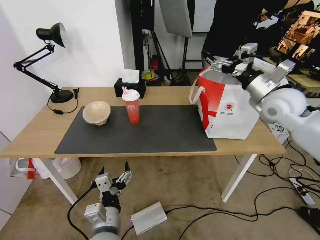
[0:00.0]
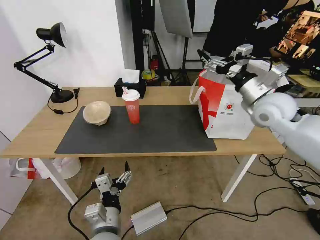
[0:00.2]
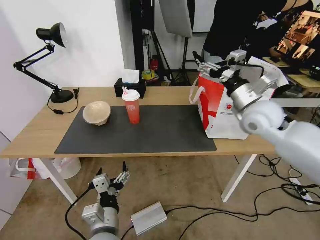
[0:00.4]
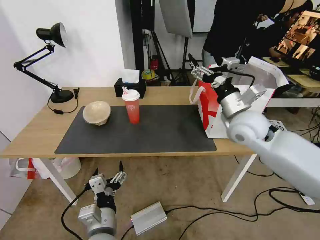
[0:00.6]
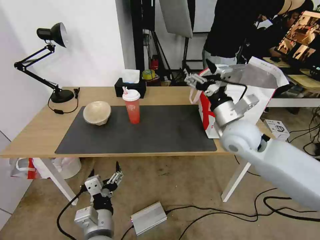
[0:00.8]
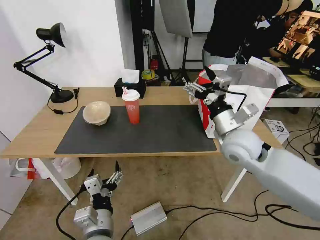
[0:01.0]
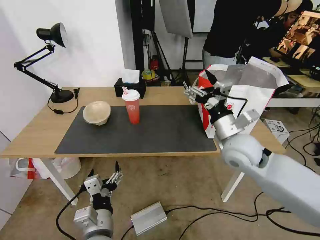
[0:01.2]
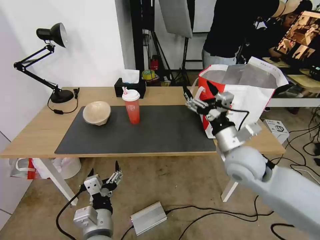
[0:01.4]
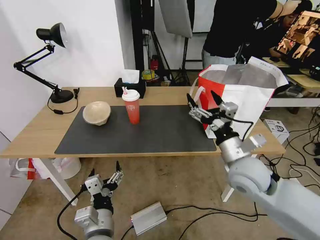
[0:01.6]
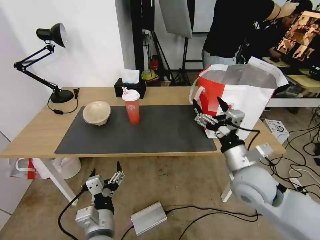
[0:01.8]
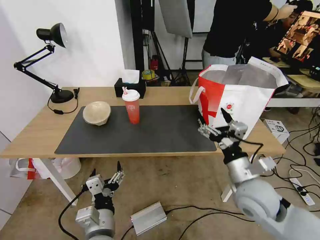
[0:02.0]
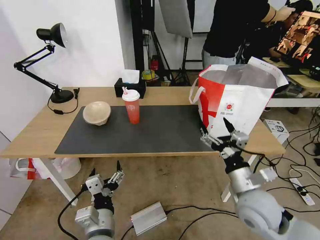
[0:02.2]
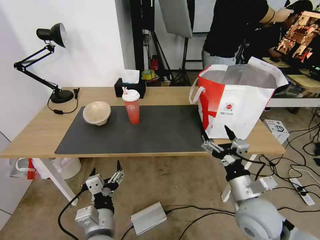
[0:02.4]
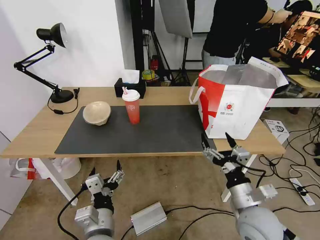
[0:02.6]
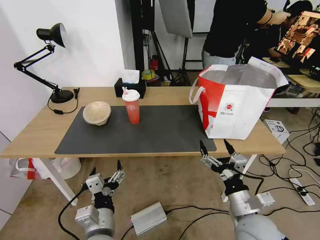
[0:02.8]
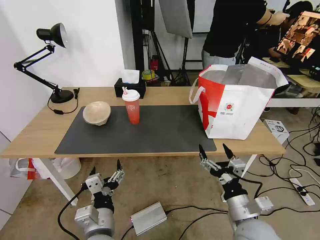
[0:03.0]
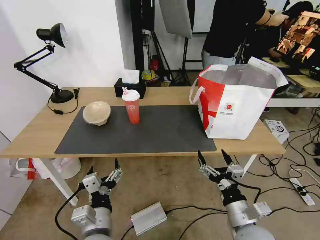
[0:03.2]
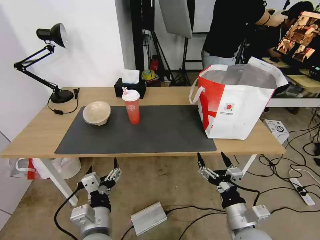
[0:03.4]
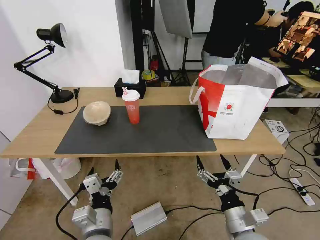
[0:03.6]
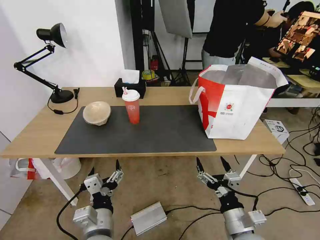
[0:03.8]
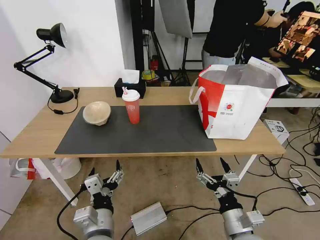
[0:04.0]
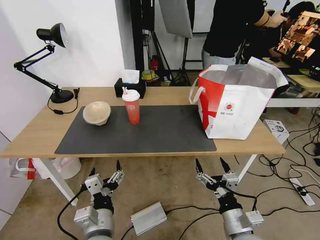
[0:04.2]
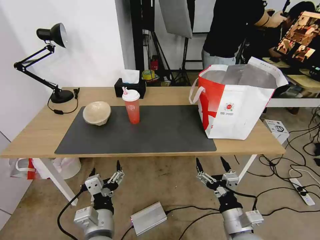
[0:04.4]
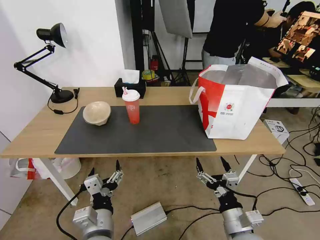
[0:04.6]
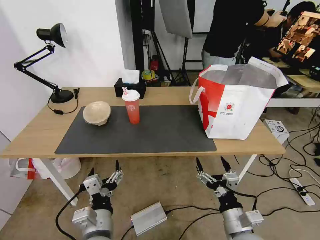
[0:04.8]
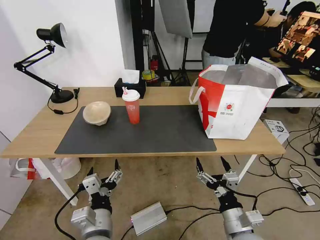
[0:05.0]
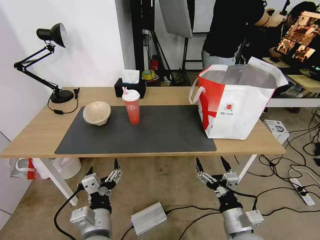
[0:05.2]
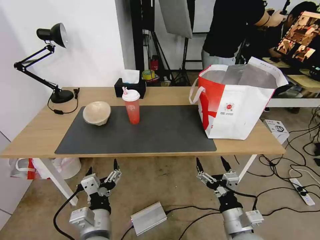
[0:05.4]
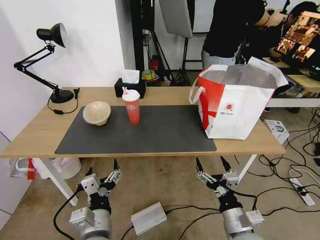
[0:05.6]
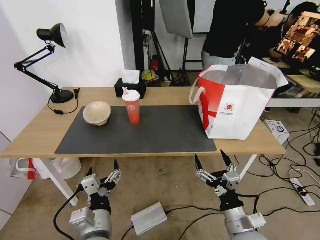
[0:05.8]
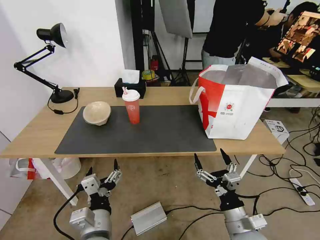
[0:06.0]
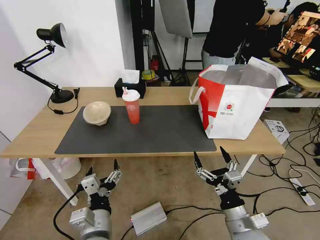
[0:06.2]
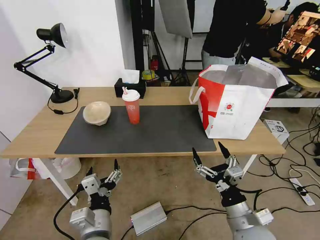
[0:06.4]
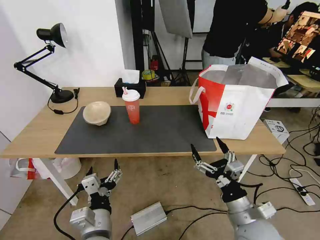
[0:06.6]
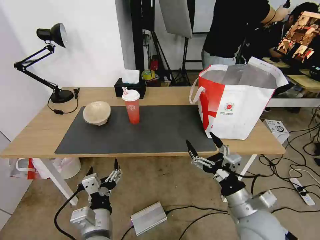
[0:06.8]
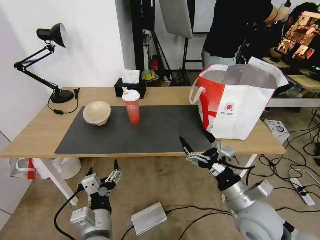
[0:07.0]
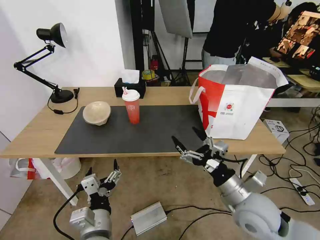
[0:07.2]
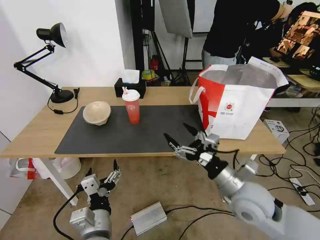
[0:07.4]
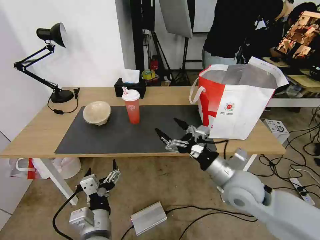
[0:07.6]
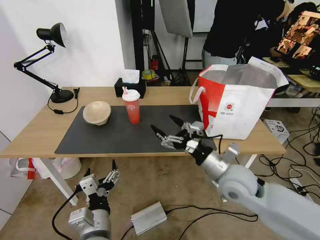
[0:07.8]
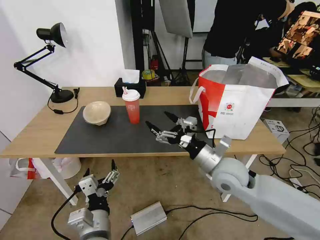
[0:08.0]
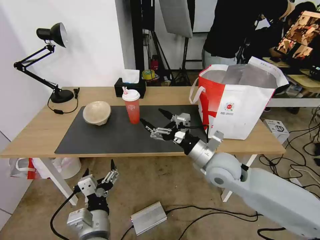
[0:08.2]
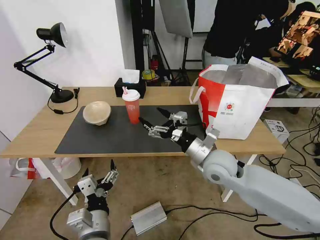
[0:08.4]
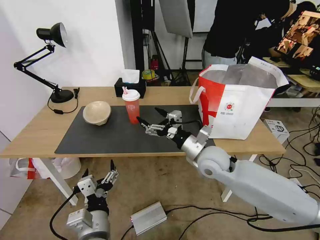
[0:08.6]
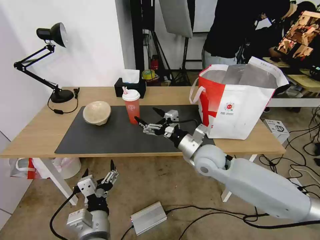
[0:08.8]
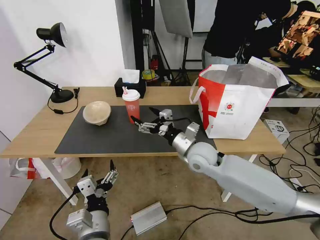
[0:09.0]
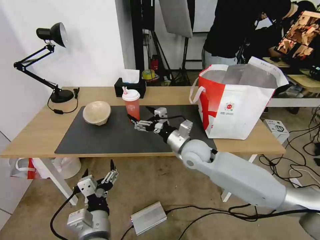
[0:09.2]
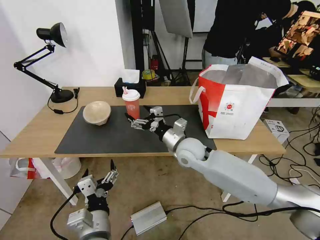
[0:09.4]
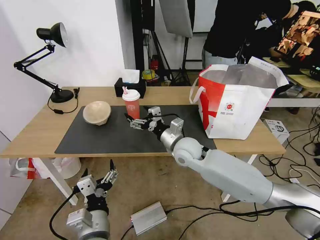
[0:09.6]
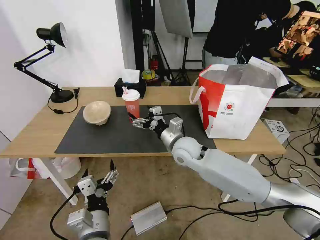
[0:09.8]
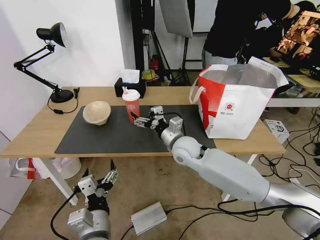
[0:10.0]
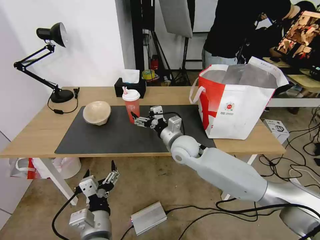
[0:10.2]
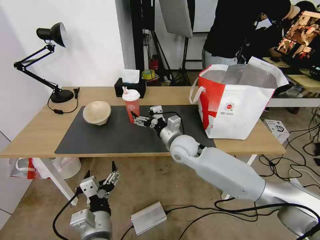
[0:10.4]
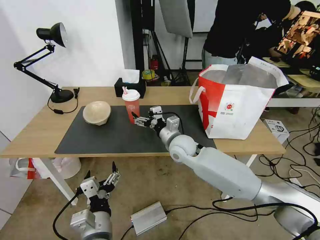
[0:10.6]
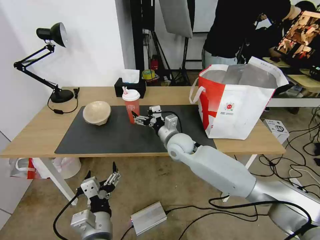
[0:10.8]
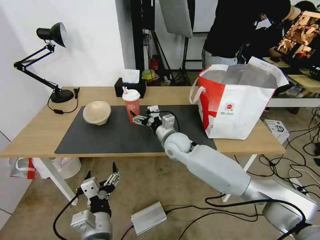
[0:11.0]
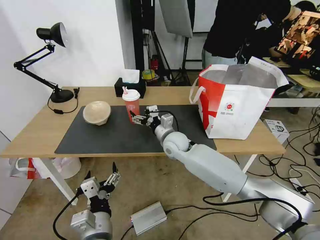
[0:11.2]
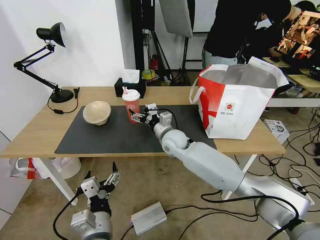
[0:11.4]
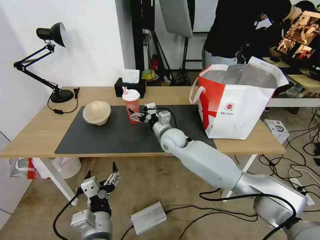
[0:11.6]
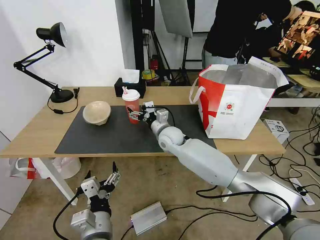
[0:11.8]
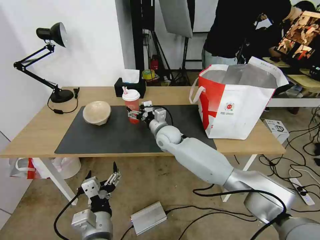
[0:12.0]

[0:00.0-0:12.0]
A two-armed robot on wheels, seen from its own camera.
Task of the whole recording: Pick up the trash from the table and place it into the takeout bag.
0:00.0 to 0:01.6: The right gripper heads backward, downward and to the left, covering roughly 20 cm.
0:01.6 to 0:03.0: The right gripper is displaced backward and downward by about 15 cm.
0:03.0 to 0:06.0: There are only small adjustments of the grippers.
0:06.0 to 0:07.6: The right gripper shifts roughly 15 cm forward and upward.
0:07.6 to 0:09.0: The right gripper is displaced forward and to the left by approximately 15 cm.
0:09.0 to 0:10.4: The right gripper moves to the left, approximately 5 cm.
0:10.4 to 0:12.0: The right gripper is displaced forward and to the left by roughly 10 cm.

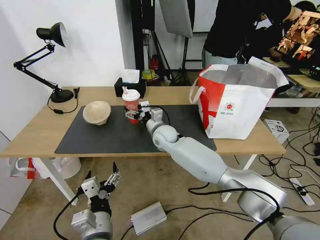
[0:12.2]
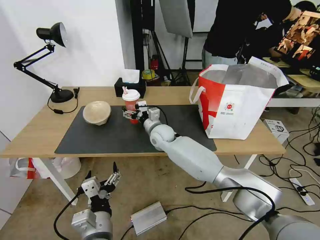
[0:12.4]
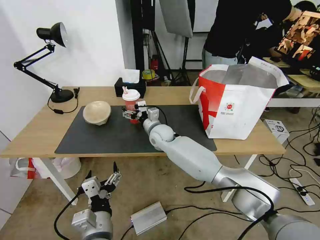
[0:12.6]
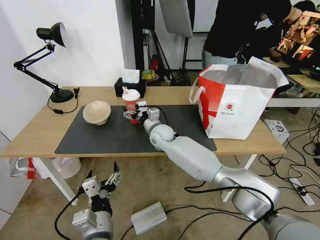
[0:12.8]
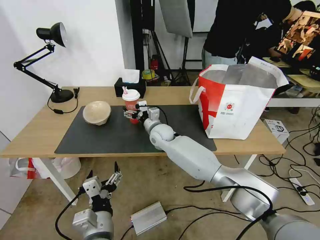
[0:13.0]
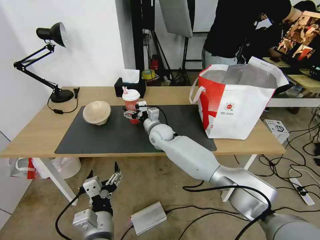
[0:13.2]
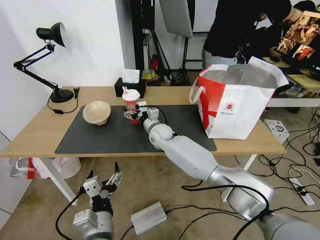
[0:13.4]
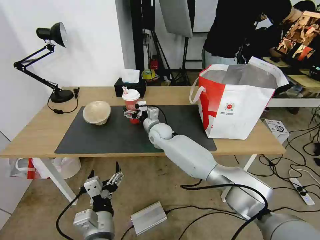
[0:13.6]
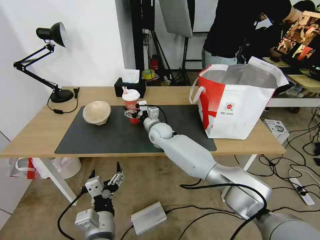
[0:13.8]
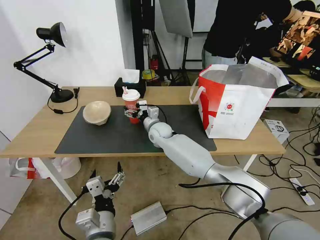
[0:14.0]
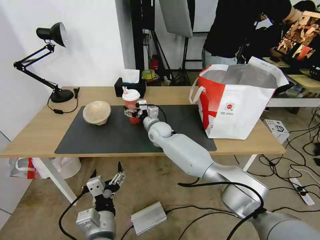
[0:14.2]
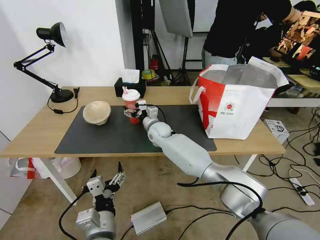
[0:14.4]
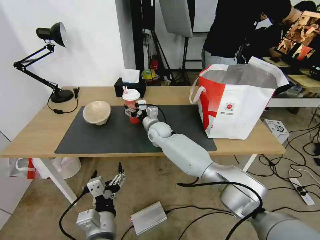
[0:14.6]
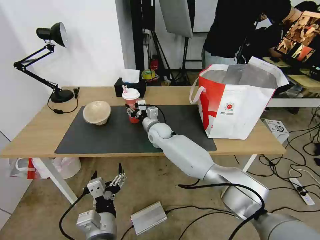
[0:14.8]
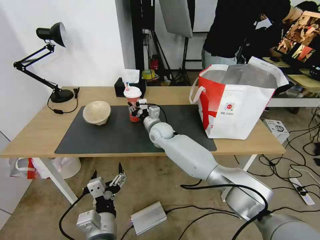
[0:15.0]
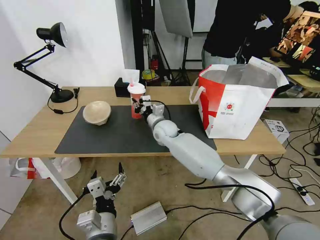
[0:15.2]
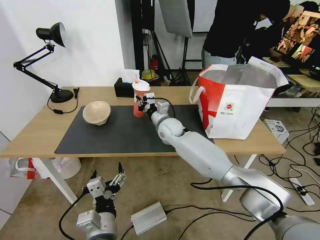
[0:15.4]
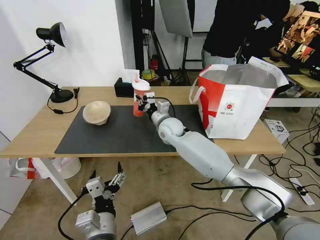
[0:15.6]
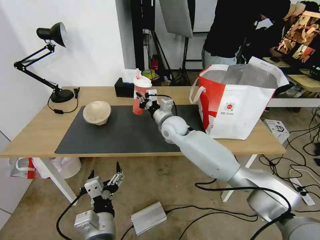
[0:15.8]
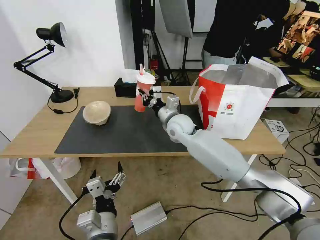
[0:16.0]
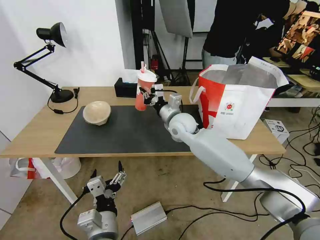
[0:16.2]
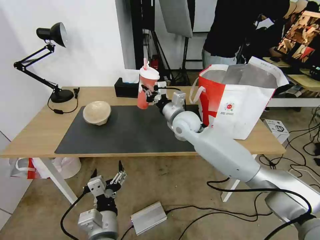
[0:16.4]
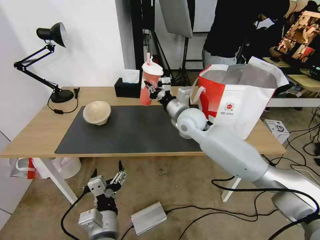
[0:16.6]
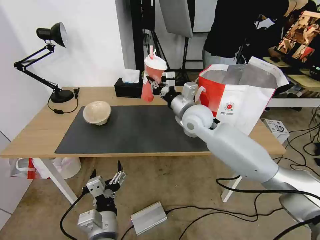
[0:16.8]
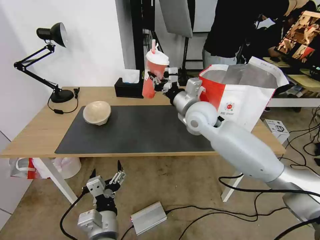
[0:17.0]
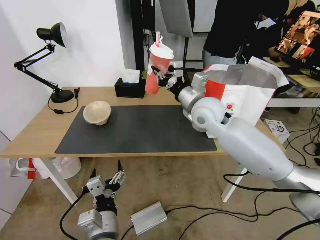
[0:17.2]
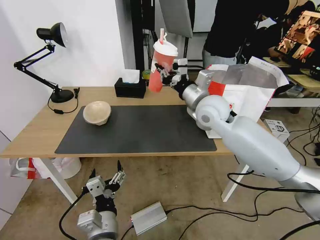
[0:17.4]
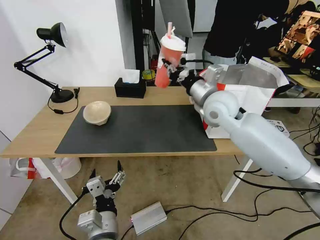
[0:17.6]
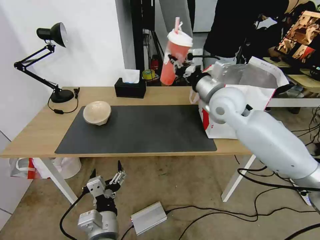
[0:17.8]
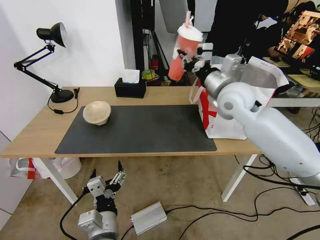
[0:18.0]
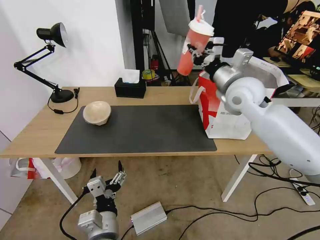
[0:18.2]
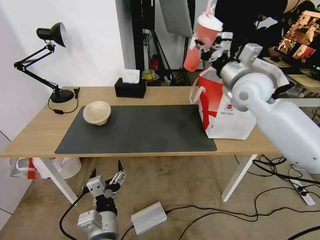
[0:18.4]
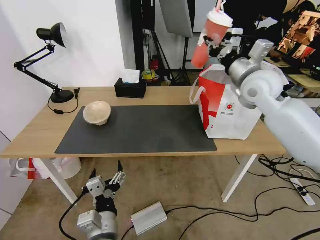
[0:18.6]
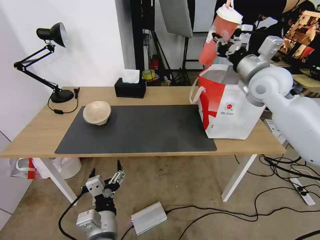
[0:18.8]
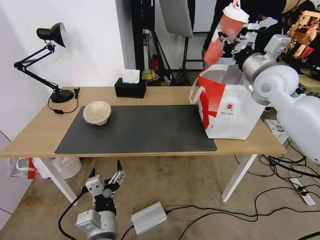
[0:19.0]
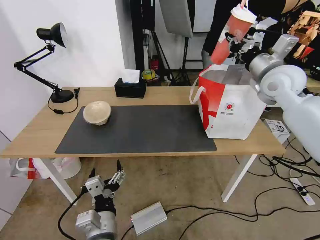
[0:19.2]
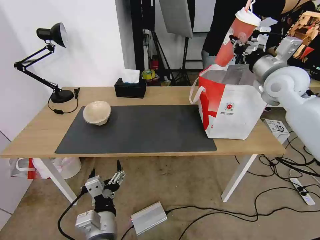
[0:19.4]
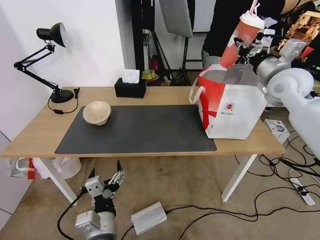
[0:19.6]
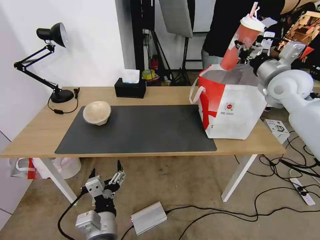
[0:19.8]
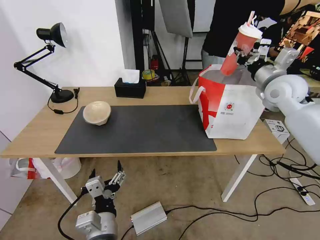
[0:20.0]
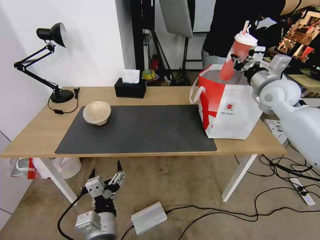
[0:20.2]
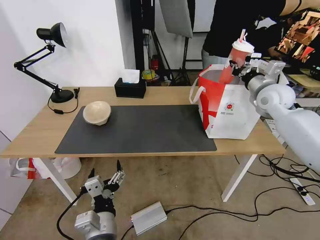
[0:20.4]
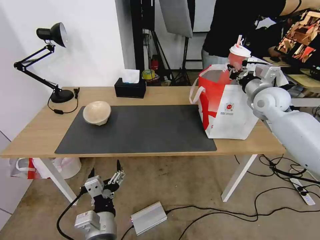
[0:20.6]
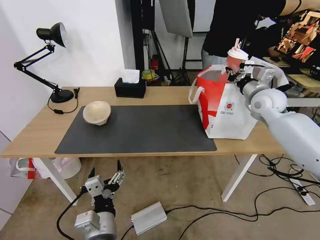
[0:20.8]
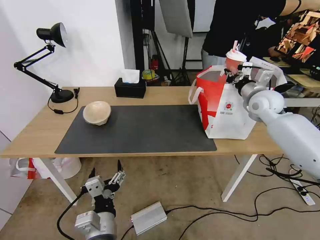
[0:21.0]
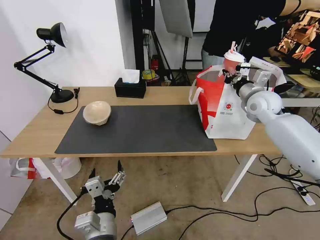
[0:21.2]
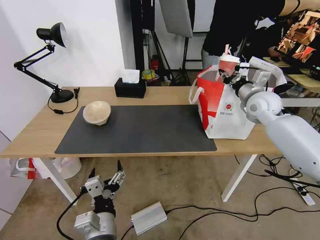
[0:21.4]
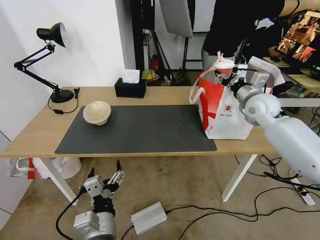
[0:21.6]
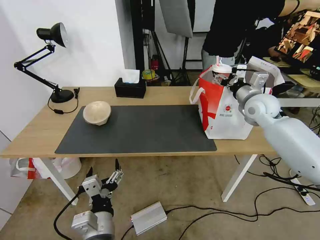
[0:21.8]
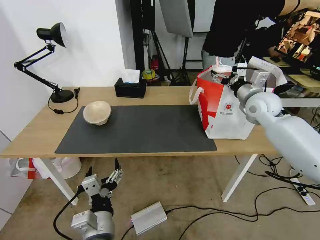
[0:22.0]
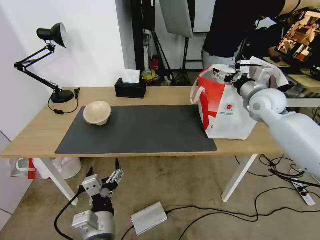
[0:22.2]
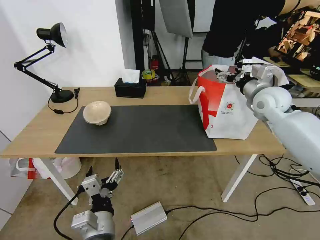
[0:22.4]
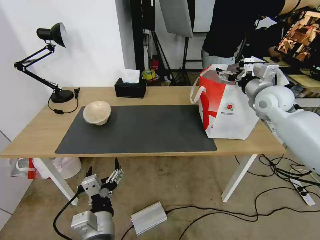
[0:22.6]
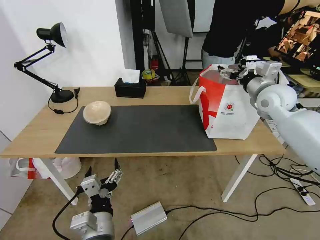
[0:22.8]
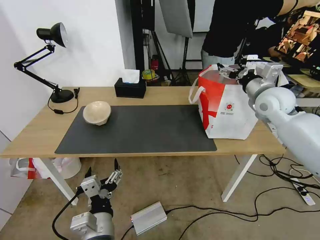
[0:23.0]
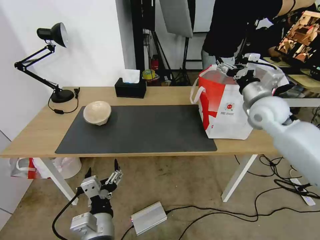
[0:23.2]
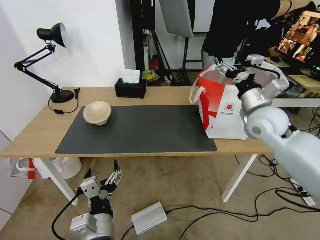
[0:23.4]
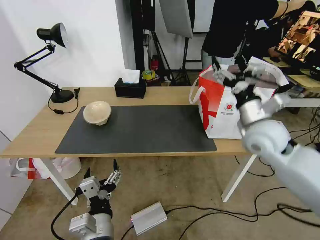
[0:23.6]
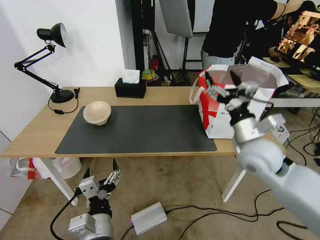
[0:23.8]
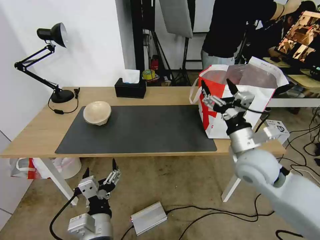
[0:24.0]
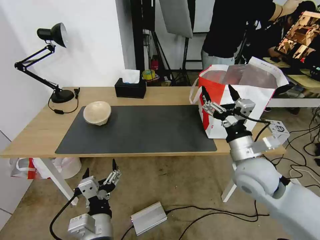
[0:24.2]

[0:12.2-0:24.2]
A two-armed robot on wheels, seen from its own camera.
Task of the whole recording: Pick up the trash from the table and place it into the takeout bag.
0:12.2 to 0:13.8: There are only small adjustments of the grippers.
0:13.8 to 0:15.2: The right gripper closes up.
0:15.2 to 0:16.6: The right gripper travels upward and to the right by roughly 15 cm.
0:16.6 to 0:18.2: The right gripper travels to the right and upward by approximately 15 cm.
0:18.2 to 0:19.8: The right gripper goes some 15 cm to the right.
0:19.8 to 0:21.2: The right gripper heads downward, covering approximately 10 cm.
0:21.2 to 0:22.6: The right gripper opens its fingers.
0:22.6 to 0:24.2: The right gripper shifts approximately 25 cm backward, to the left and downward.
